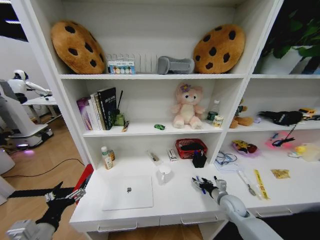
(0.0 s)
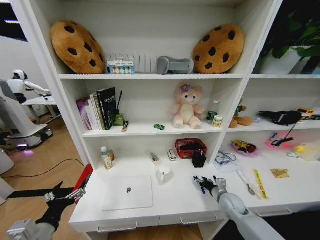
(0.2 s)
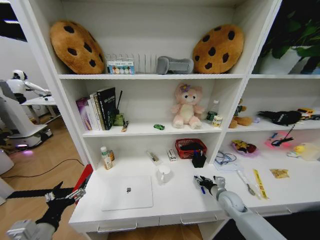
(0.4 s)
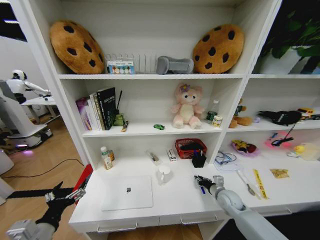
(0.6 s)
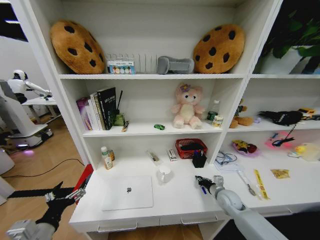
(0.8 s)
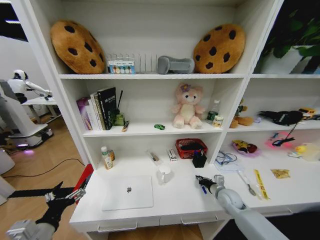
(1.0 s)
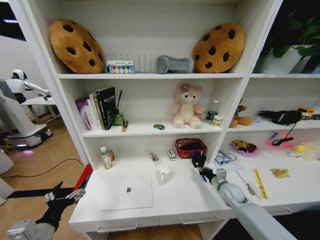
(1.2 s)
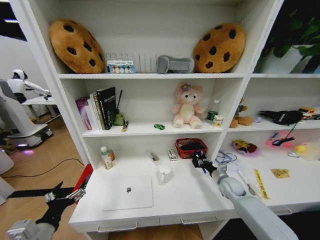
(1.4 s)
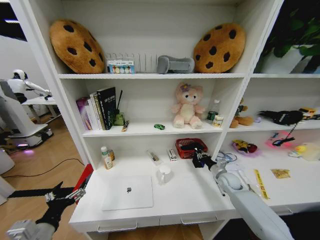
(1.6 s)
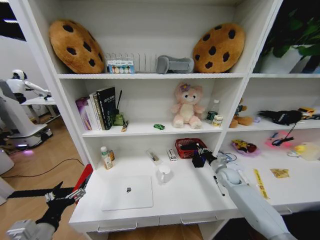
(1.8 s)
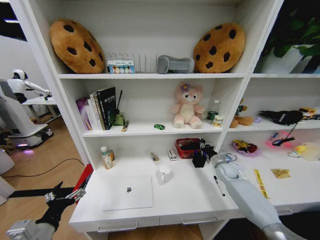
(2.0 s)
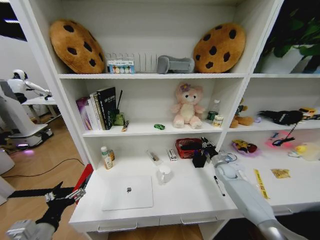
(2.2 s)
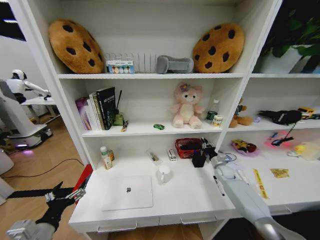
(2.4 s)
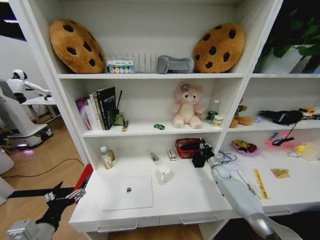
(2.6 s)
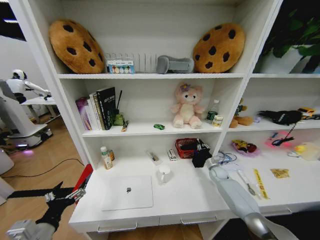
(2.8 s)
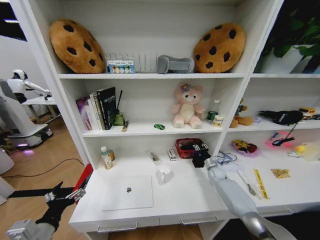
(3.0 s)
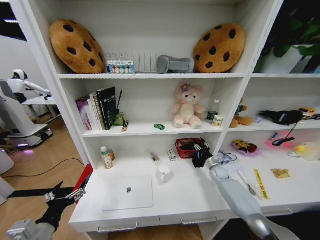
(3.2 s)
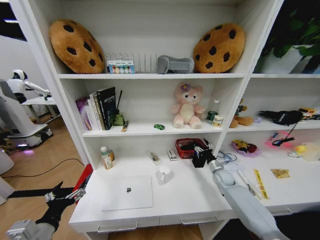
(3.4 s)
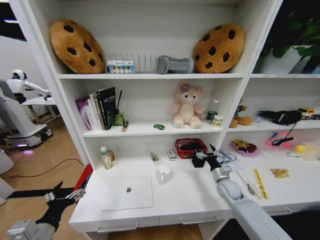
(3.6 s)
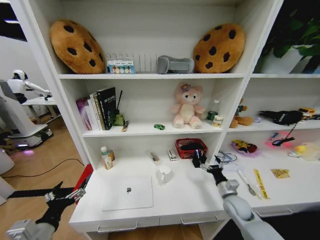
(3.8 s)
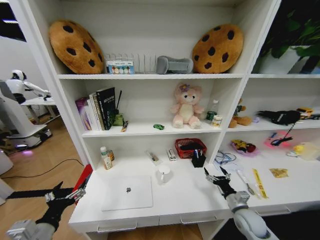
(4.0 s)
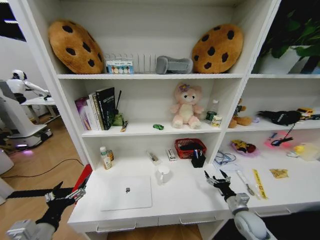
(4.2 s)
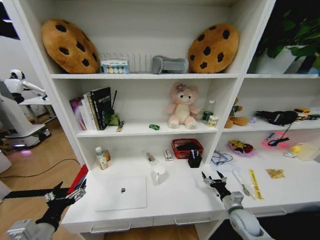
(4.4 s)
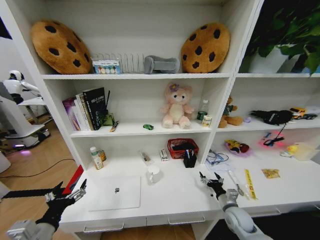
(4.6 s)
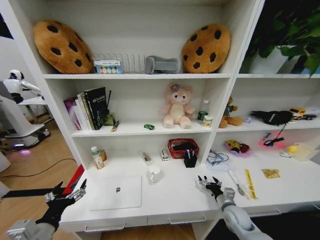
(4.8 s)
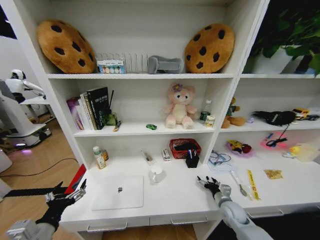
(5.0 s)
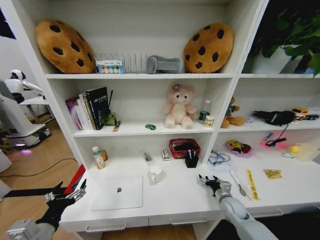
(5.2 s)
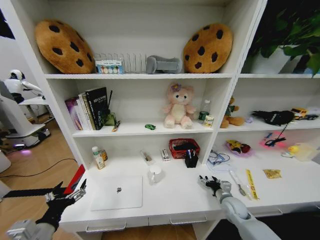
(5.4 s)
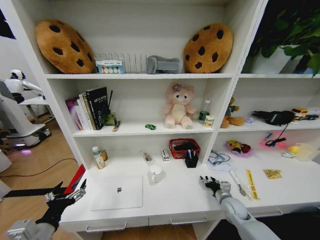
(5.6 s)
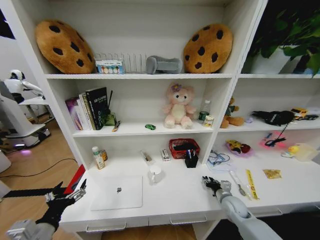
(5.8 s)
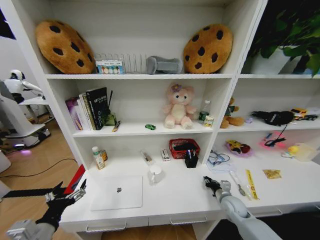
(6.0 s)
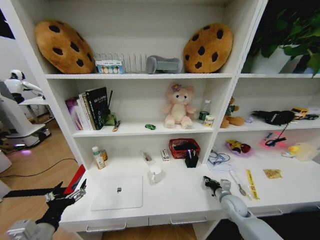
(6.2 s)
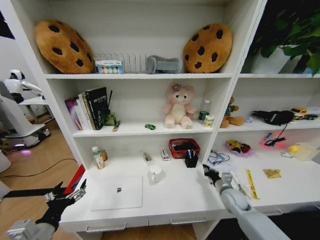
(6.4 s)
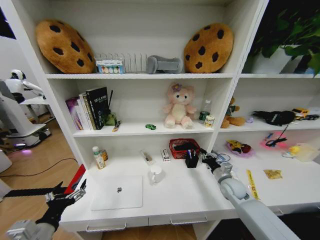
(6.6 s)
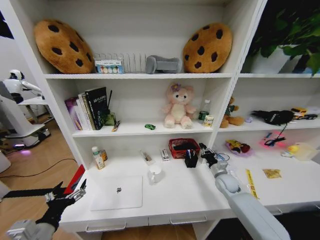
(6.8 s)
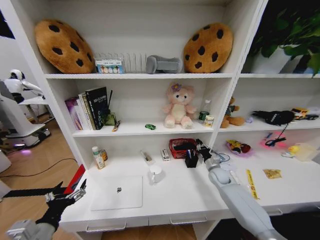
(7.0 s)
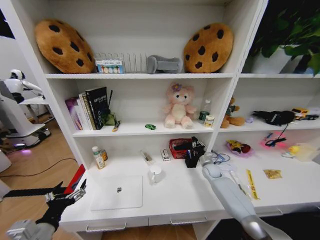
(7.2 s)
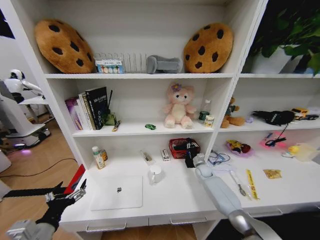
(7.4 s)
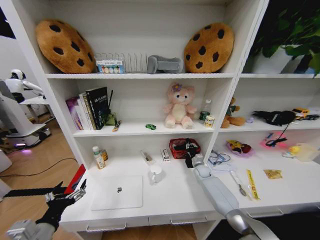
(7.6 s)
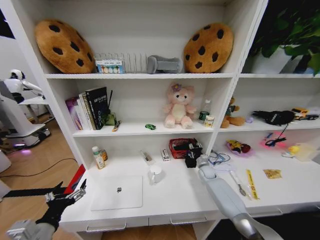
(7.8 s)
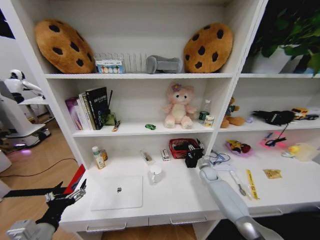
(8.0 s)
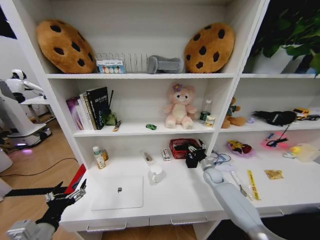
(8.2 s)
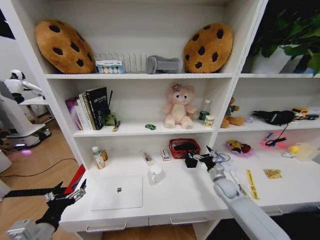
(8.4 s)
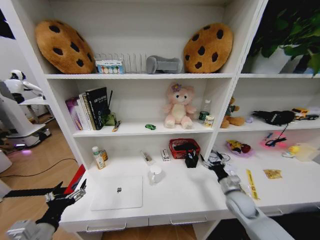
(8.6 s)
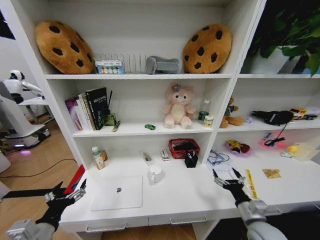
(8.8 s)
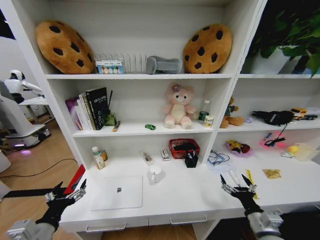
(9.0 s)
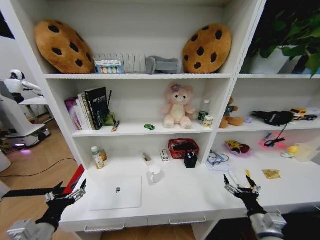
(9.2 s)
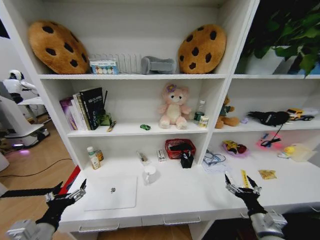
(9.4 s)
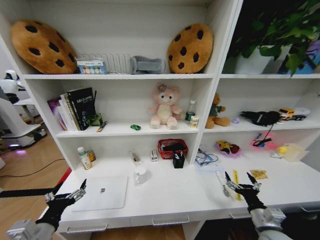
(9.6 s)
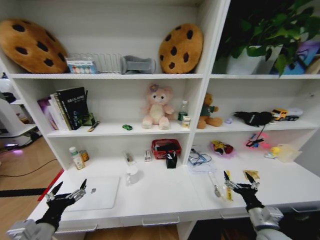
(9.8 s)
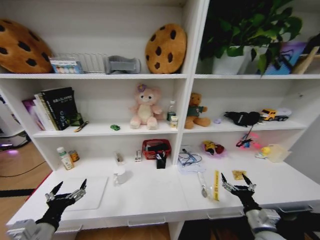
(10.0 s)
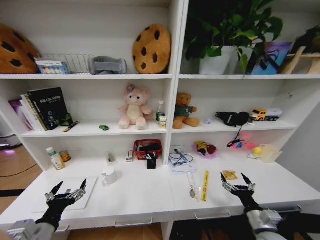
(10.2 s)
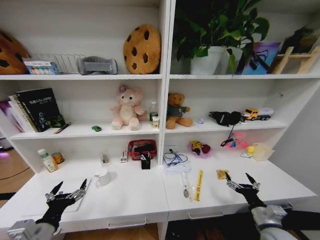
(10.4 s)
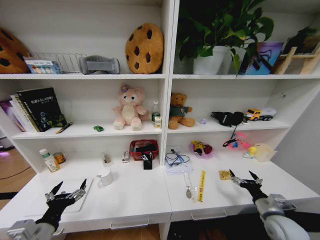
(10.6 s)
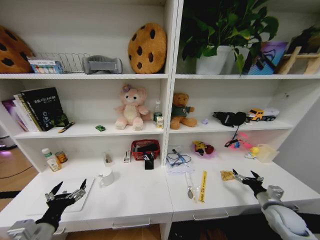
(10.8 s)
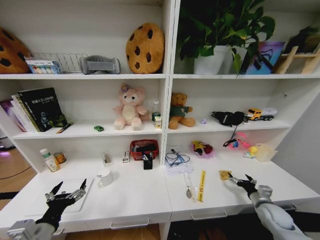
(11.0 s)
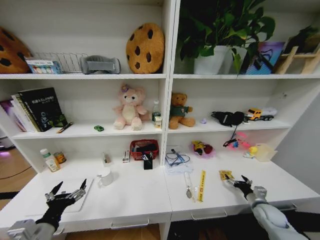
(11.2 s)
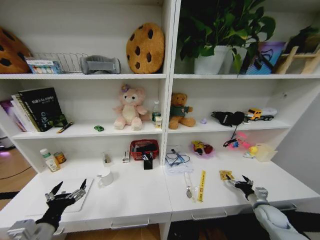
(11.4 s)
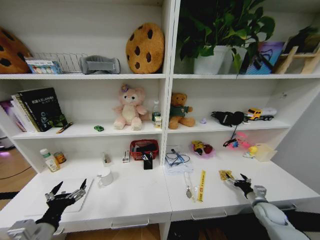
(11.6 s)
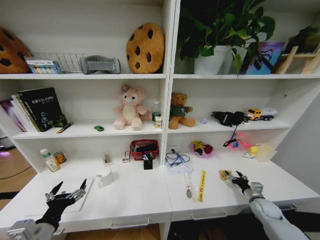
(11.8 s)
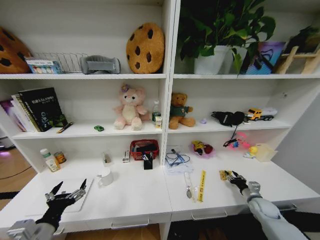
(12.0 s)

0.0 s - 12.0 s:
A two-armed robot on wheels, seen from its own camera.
Task of the whole recording: Organize the objects on the table.
0.0 s - 1.6 s: The right gripper heads forward, covering approximately 10 cm, and closes.
1.6 s - 3.0 s: The right gripper travels forward and downward by some 10 cm.
3.0 s - 4.4 s: The right gripper moves backward, about 25 cm, and opens.
4.4 s - 6.0 s: The right gripper moves forward, roughly 5 cm, and closes.
6.0 s - 7.6 s: The right gripper goes some 20 cm forward.
7.6 s - 9.0 s: The right gripper is displaced backward by roughly 35 cm, and opens its fingers.
10.4 s - 12.0 s: The right gripper shifts roughly 20 cm forward, to the right and downward, and closes its fingers.

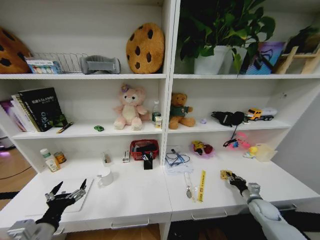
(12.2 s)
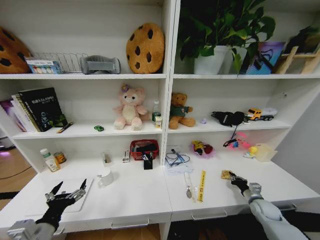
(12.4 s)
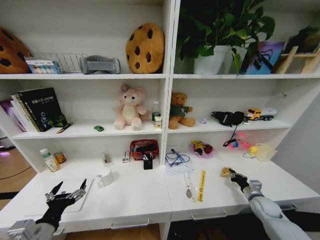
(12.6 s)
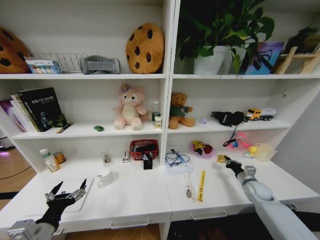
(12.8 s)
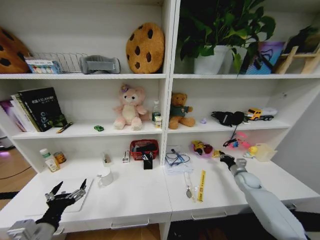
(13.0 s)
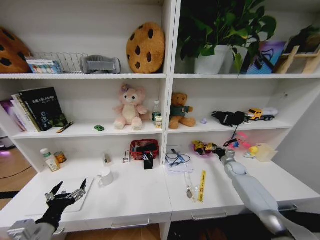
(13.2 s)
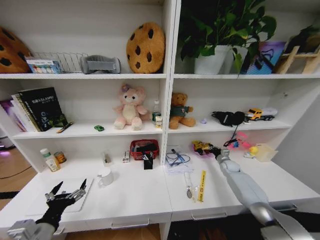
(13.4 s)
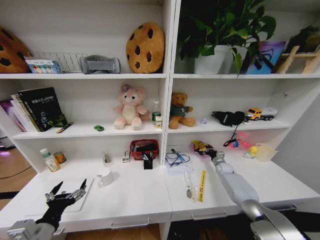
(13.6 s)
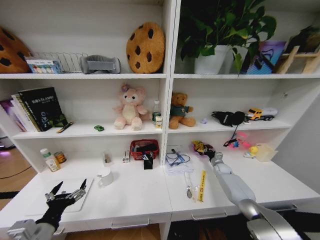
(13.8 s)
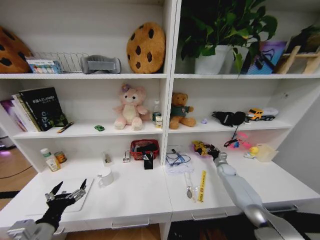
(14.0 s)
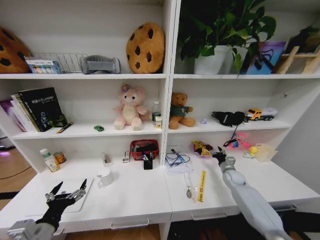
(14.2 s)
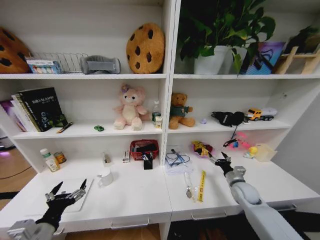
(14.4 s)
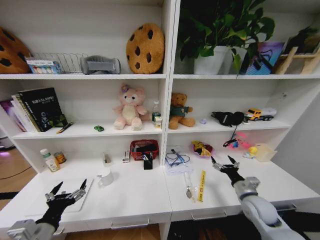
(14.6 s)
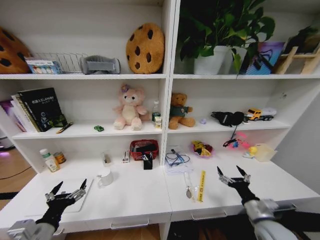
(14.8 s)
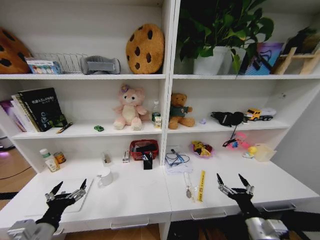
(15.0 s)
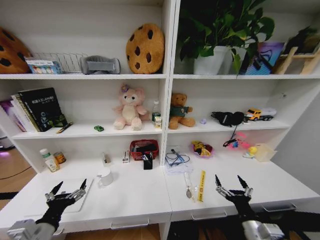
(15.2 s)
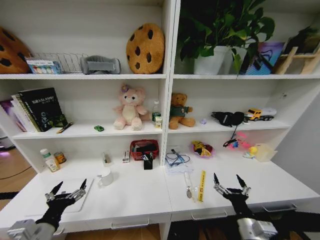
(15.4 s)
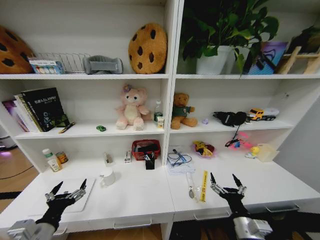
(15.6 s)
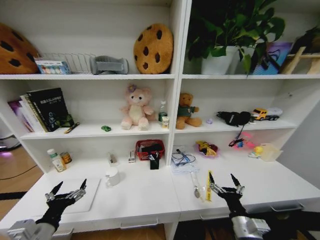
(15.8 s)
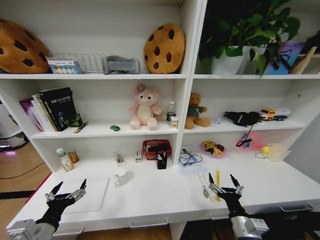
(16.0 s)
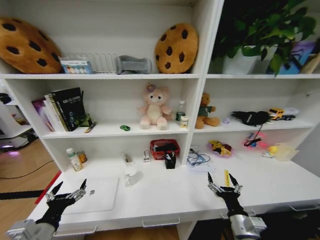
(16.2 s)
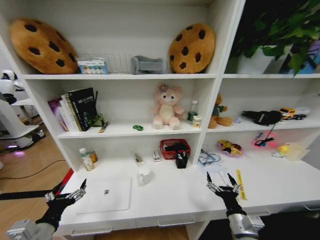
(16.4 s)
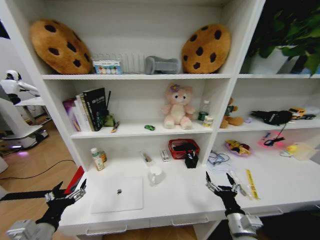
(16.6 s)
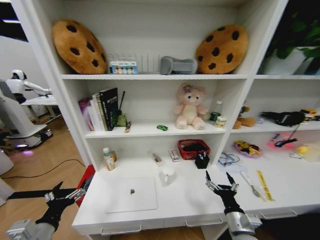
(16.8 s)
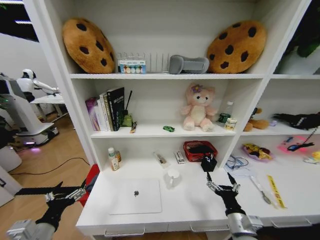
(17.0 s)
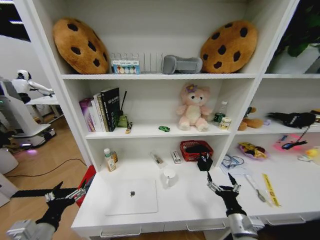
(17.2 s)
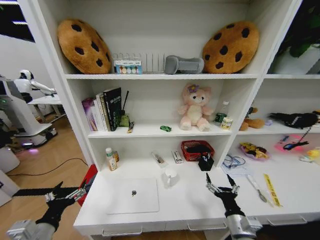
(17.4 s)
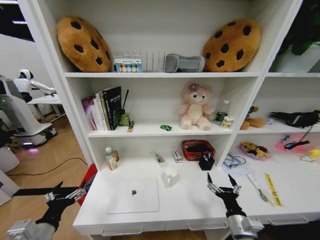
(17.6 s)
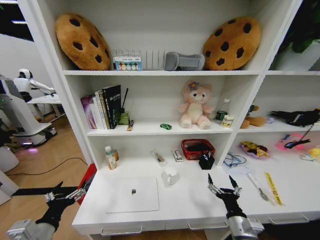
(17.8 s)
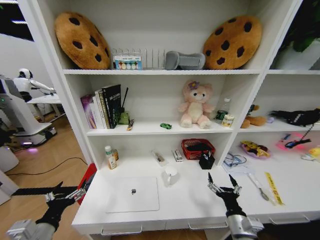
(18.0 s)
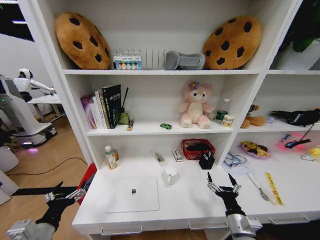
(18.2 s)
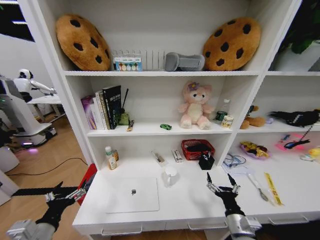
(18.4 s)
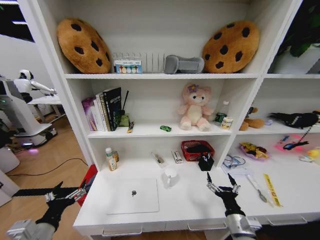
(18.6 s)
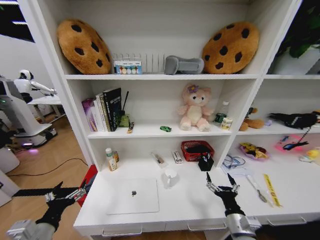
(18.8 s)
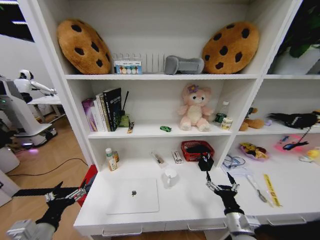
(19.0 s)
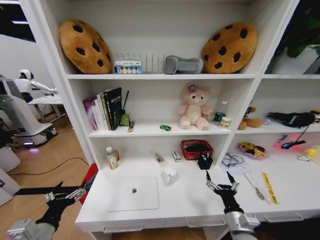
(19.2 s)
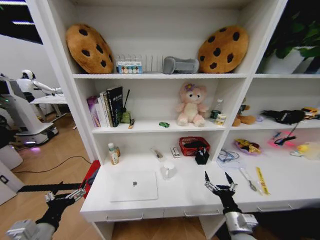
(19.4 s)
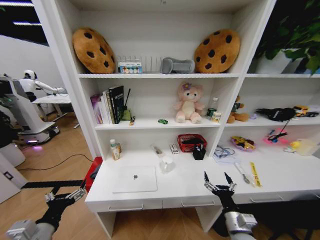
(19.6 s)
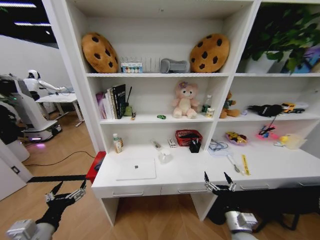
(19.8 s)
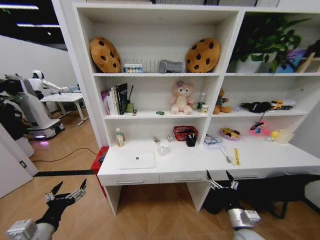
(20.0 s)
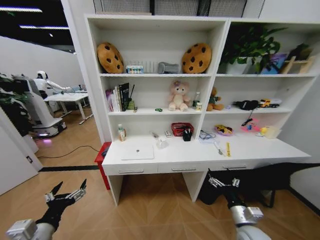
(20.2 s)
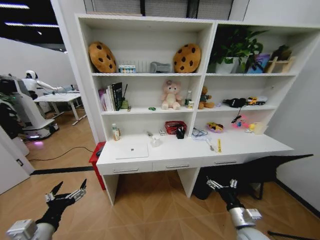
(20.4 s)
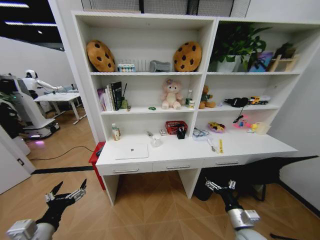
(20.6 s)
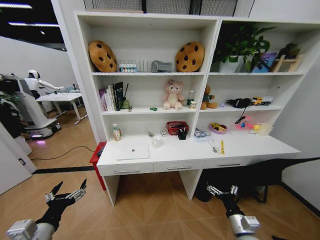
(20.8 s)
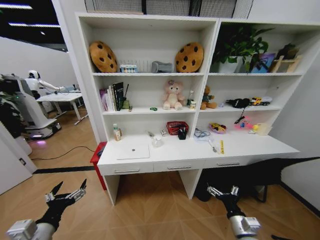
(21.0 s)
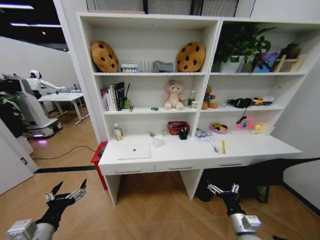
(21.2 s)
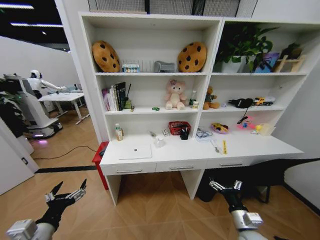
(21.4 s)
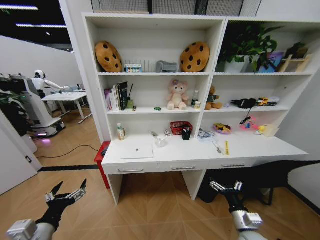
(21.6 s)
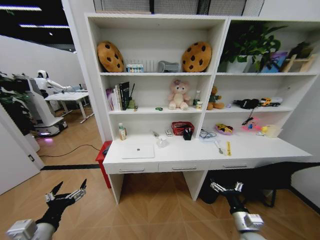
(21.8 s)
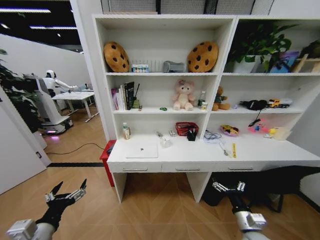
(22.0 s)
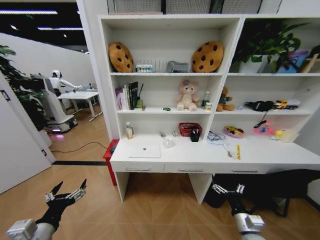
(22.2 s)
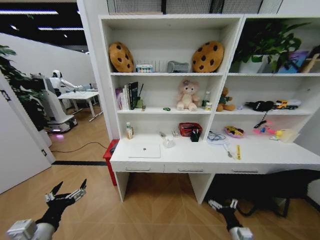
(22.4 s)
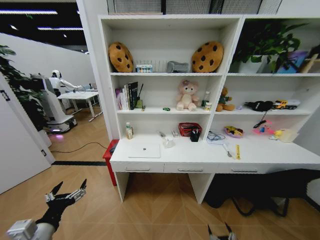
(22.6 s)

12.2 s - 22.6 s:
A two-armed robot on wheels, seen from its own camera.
Task of the whole recording: Organize the objects on the table.
12.2 s - 13.6 s: The right gripper shifts roughly 20 cm forward.
13.6 s - 15.2 s: The right gripper shifts some 40 cm backward, and opens up.
21.2 s - 22.6 s: The right gripper heads downward and backward, covering some 25 cm.
